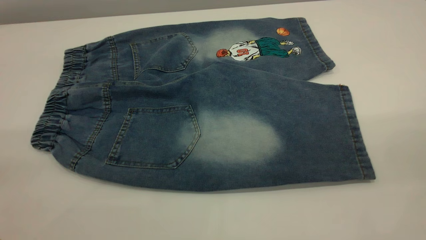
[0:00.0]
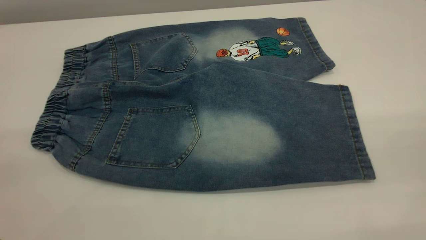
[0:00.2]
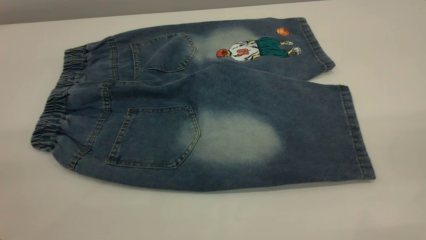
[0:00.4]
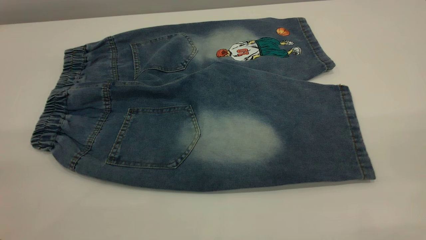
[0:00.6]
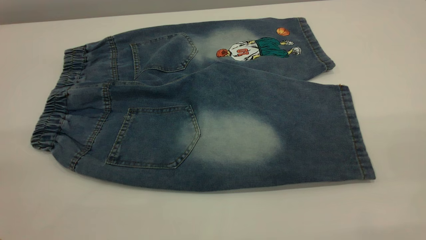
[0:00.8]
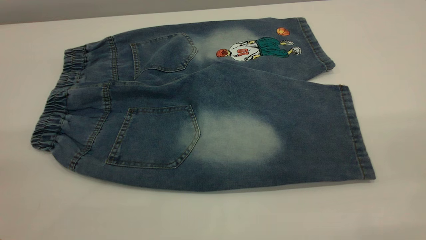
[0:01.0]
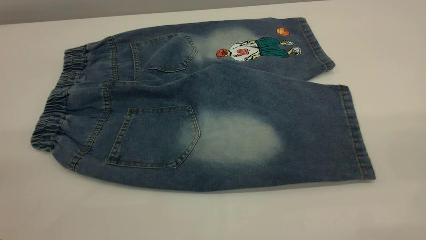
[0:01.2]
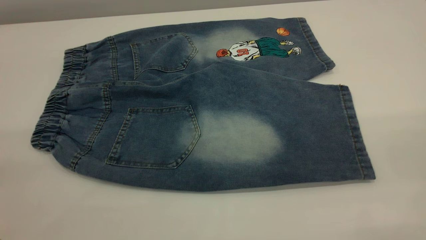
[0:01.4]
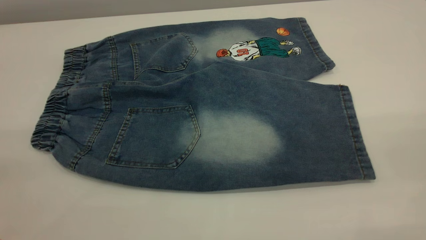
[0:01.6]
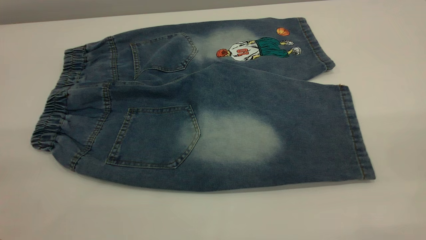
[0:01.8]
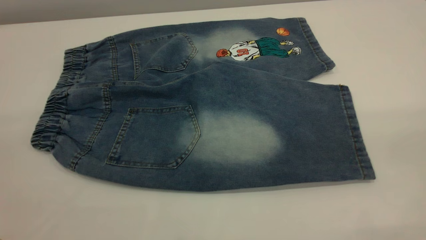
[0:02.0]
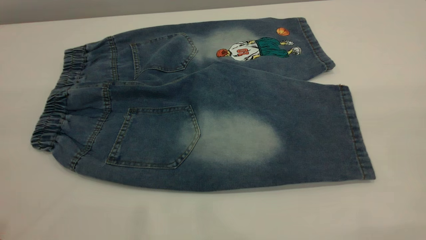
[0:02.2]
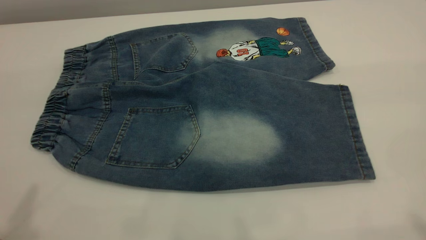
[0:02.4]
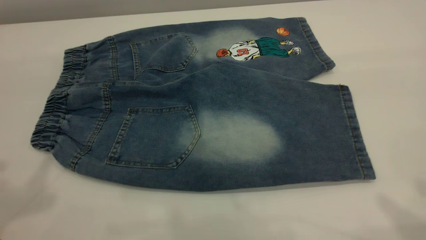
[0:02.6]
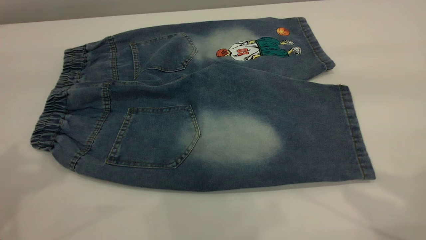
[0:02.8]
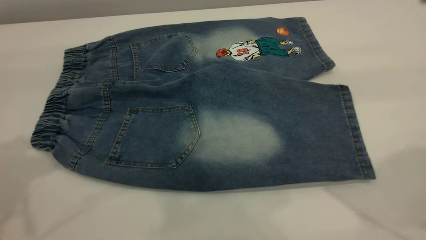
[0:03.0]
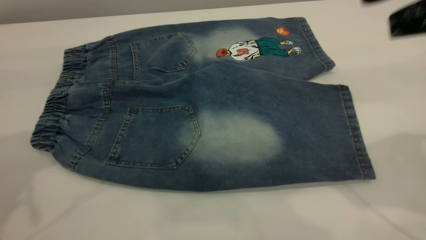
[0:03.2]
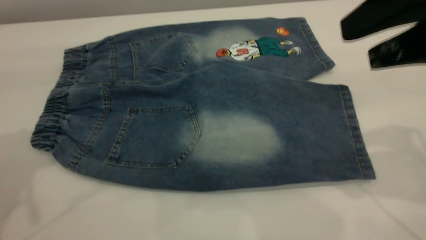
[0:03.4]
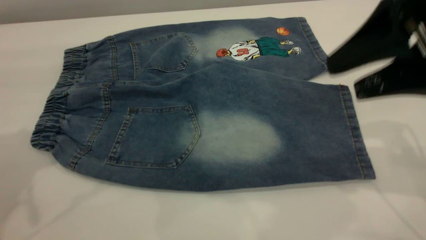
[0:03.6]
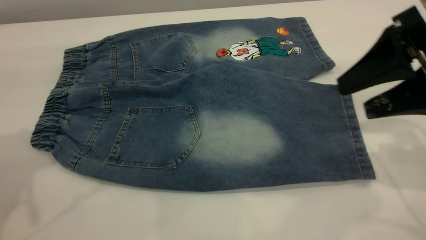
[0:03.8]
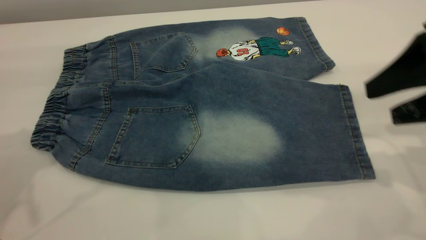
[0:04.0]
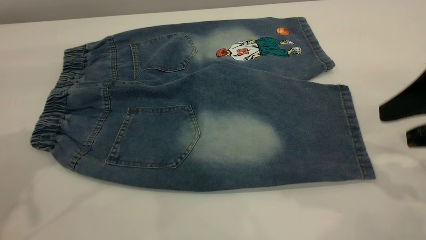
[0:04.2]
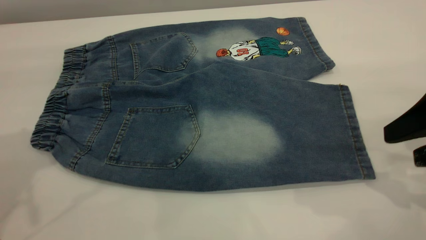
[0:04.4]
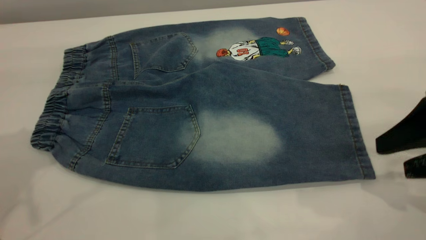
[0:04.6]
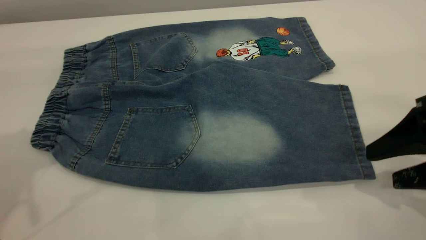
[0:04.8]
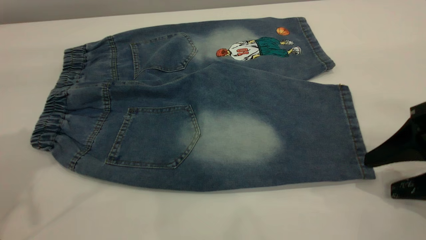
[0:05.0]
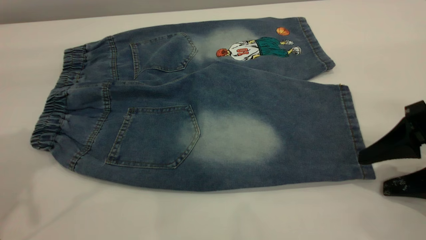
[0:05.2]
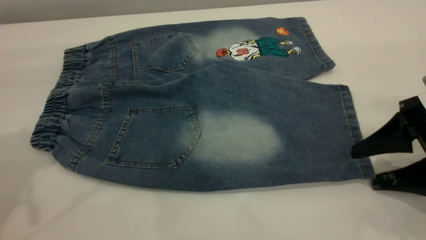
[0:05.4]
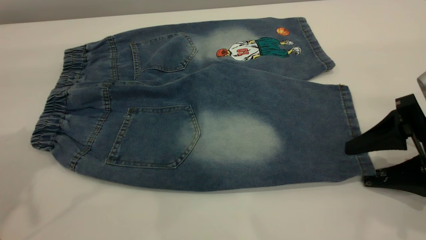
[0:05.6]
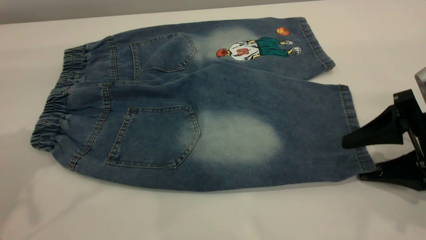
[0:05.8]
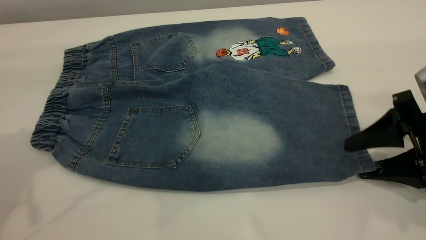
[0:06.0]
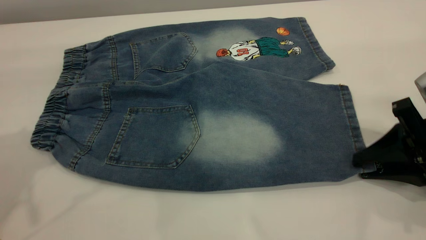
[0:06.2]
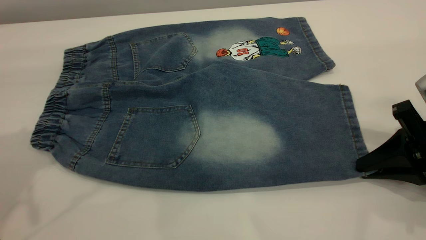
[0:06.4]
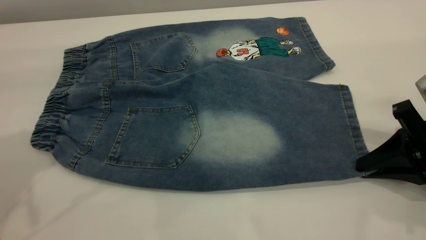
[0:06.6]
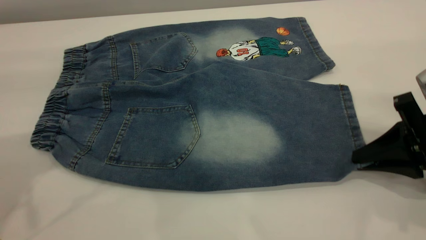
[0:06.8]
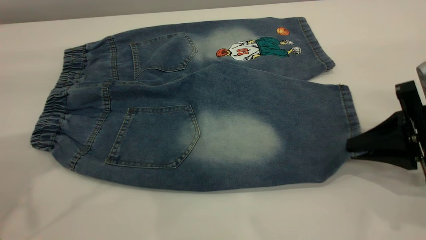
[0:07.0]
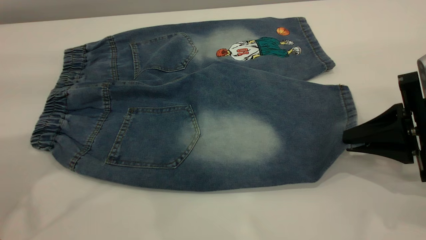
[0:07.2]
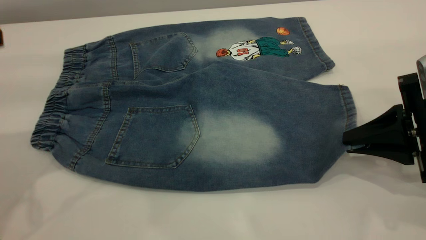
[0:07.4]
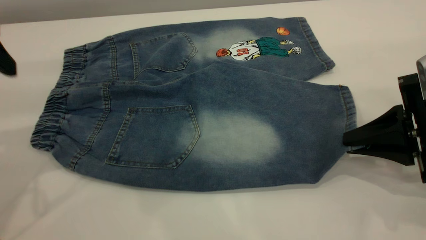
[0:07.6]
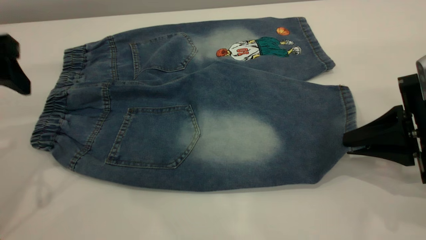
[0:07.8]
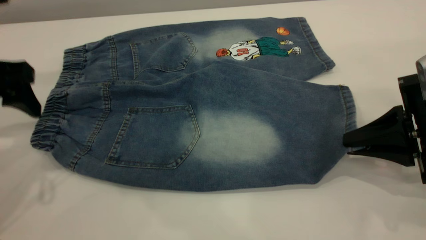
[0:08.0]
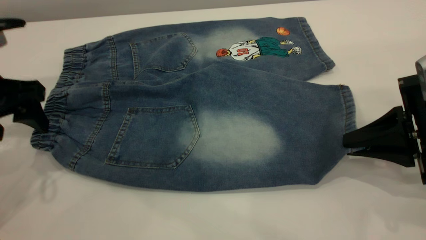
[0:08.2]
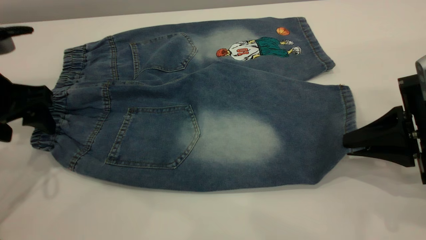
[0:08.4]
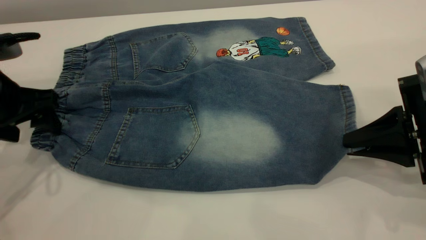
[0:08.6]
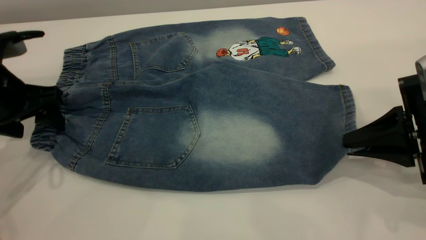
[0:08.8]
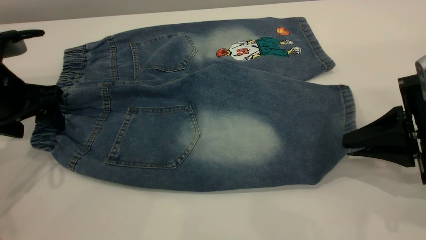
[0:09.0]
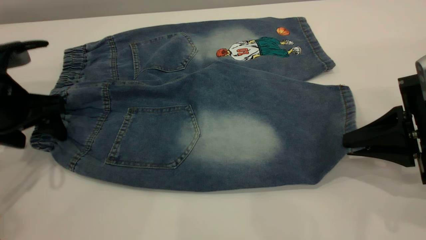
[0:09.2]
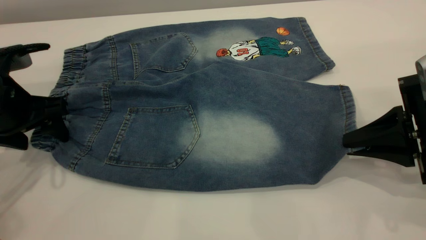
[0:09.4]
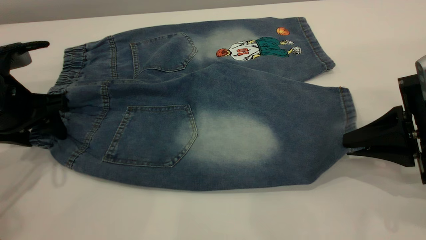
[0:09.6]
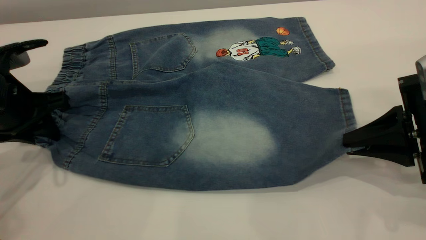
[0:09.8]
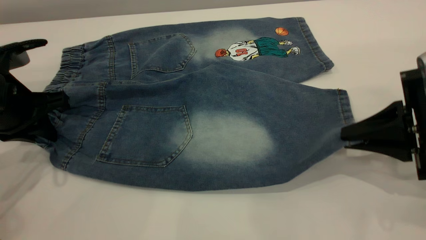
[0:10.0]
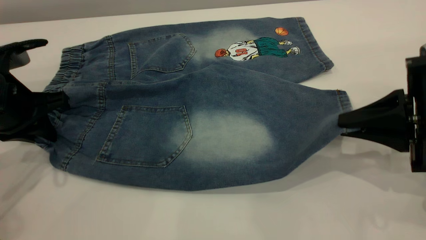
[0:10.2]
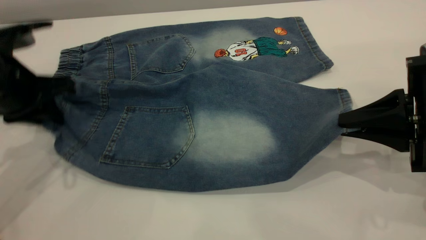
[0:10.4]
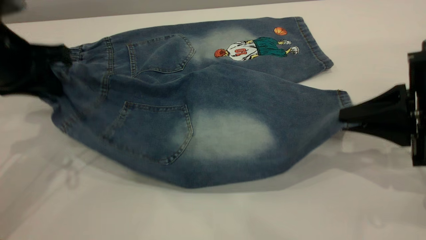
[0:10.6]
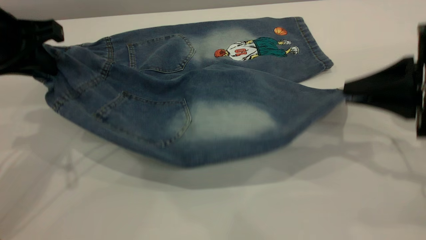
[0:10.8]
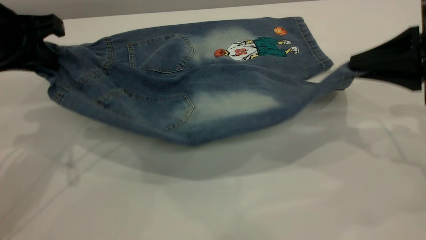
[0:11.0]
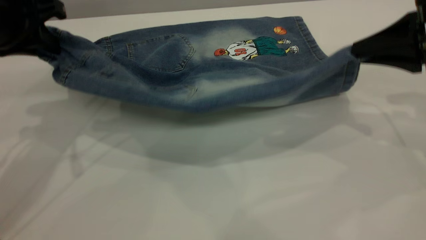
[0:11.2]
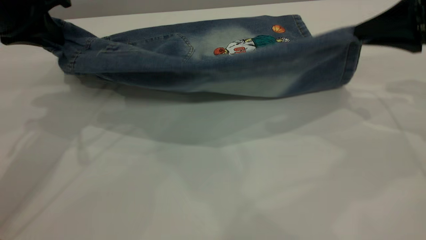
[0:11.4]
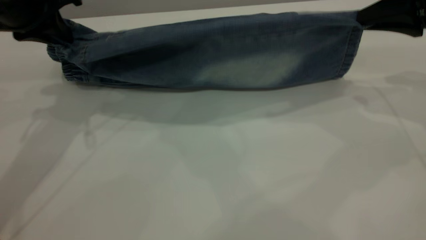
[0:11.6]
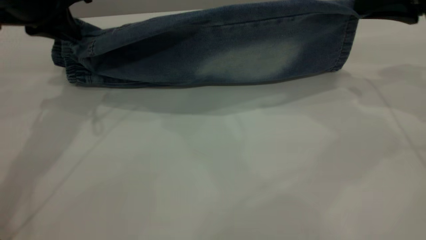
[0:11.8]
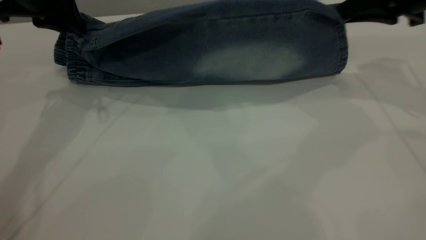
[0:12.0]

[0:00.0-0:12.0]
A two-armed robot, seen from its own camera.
0:00.0 to 0:01.6: Both grippers stay put.
0:03.0 to 0:04.4: The right gripper heads downward, covering about 15 cm.
0:04.4 to 0:06.0: The right gripper is displaced downward by some 5 cm.
0:06.0 to 0:07.6: The right gripper closes its fingers.
0:07.6 to 0:09.0: The left gripper moves downward, some 10 cm.
0:09.0 to 0:10.4: The left gripper closes.
0:10.4 to 0:12.0: Both grippers travel together forward and upward, about 15 cm.

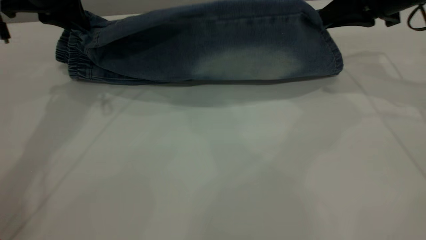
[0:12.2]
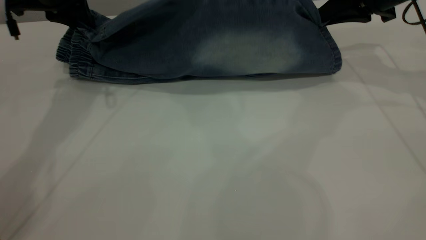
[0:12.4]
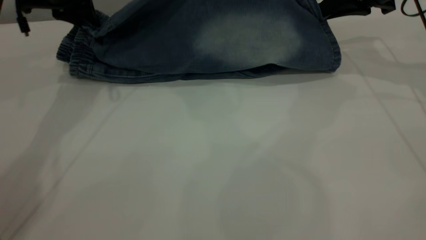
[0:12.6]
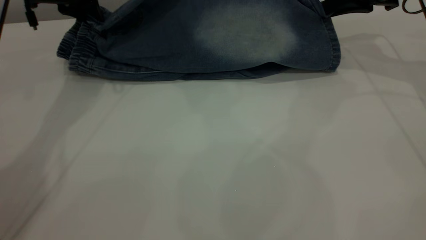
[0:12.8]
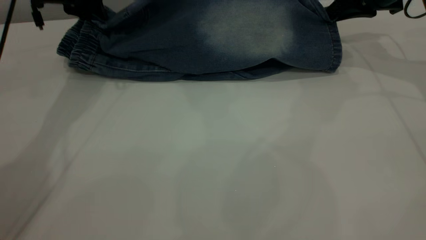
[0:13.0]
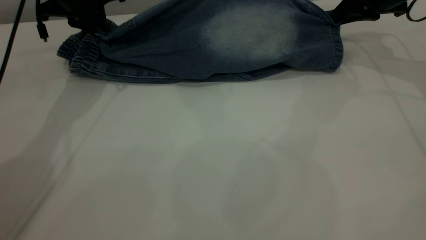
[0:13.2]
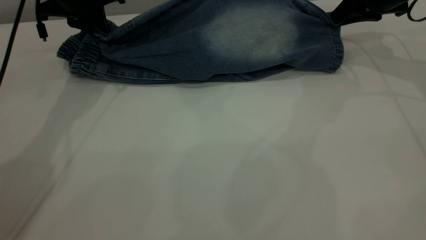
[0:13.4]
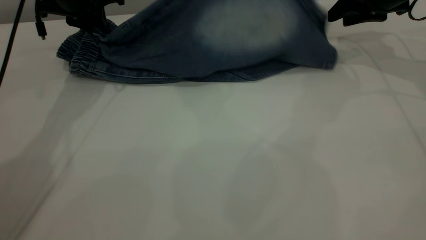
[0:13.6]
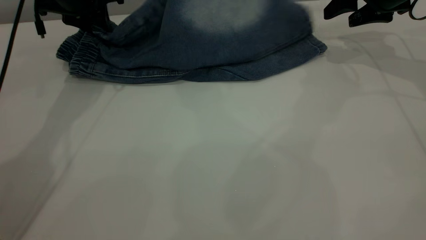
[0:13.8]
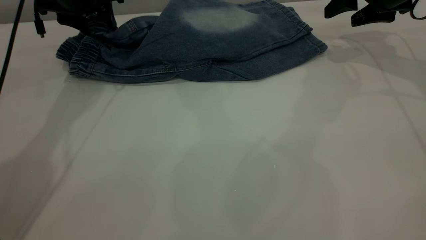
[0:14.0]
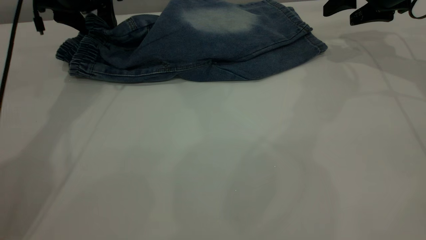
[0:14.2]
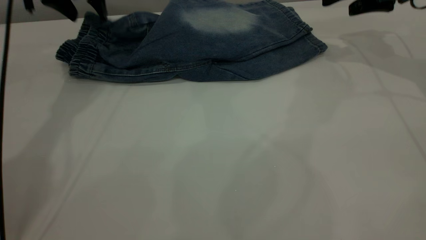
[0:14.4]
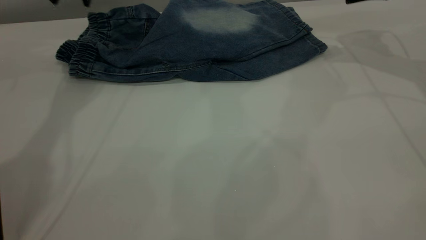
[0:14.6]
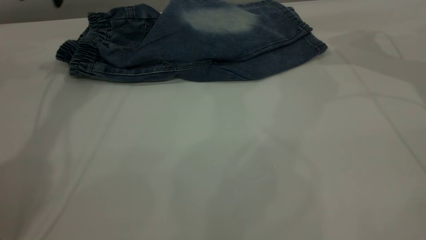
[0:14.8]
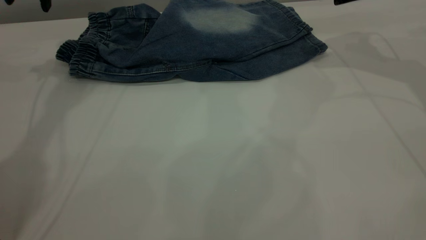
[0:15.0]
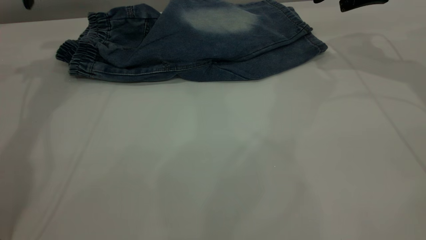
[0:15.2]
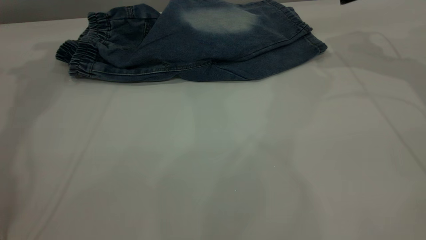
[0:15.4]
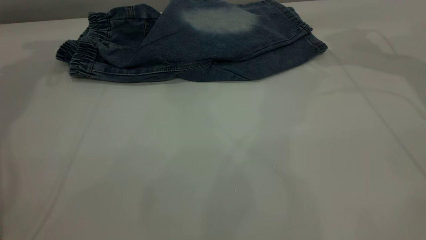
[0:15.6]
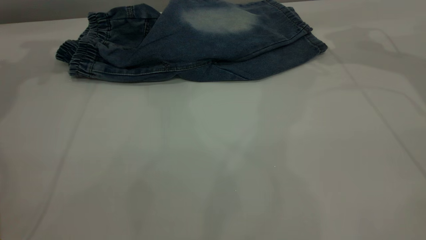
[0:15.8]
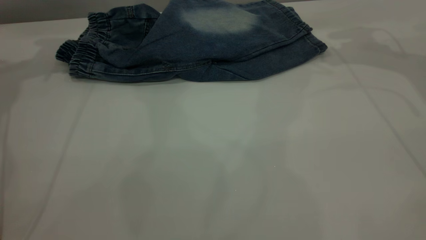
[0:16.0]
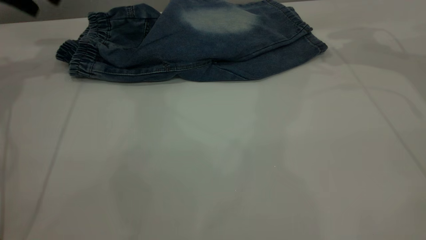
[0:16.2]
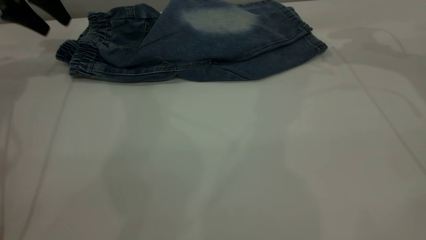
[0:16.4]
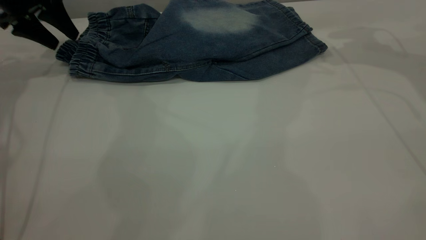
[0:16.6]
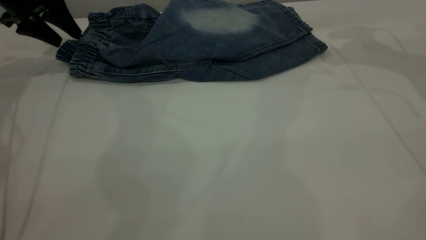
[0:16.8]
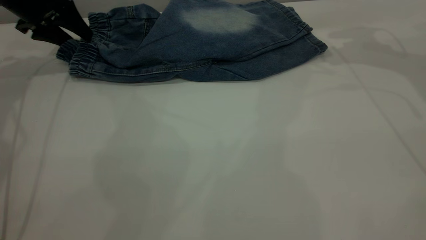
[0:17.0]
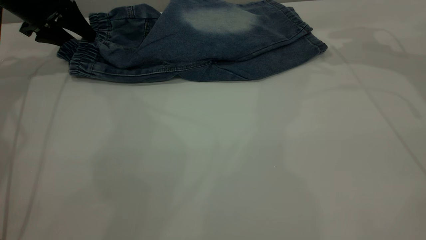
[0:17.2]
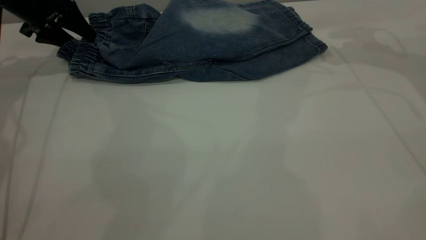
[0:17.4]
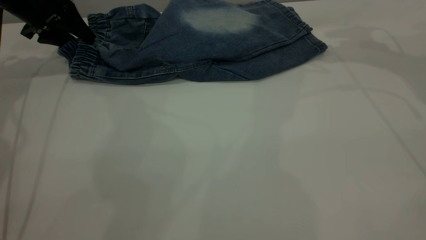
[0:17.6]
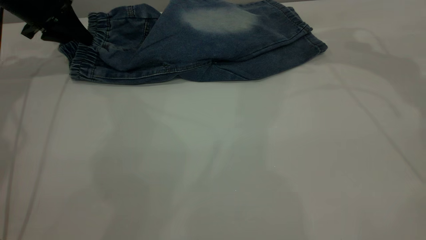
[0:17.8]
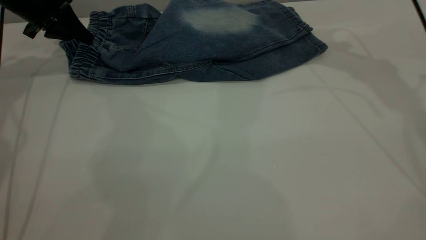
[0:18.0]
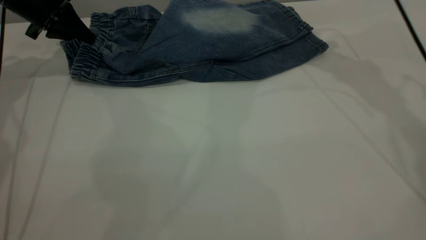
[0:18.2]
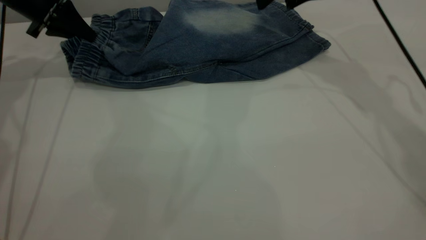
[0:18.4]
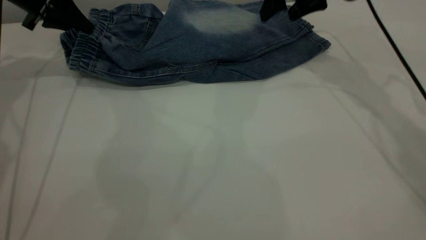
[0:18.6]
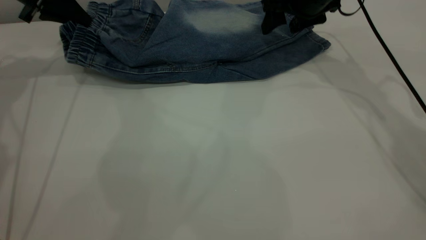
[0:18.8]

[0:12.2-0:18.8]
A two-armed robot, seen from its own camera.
Step, 0:12.2 to 0:15.6: Fold the bottom of the pants upward.
0:12.2 to 0:13.8: Both grippers move forward, approximately 5 cm. The left gripper opens up. The right gripper opens up.
0:13.8 to 0:15.4: The right gripper goes about 5 cm upward. Meanwhile the left gripper goes about 15 cm upward and to the left.
0:15.4 to 0:17.2: The left gripper heads downward, covering approximately 15 cm.
0:17.2 to 0:18.8: The left gripper closes. Meanwhile the right gripper shifts approximately 15 cm to the left and downward.
